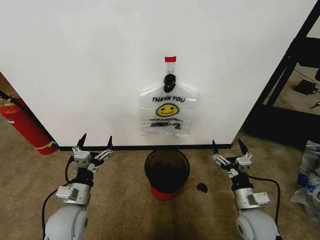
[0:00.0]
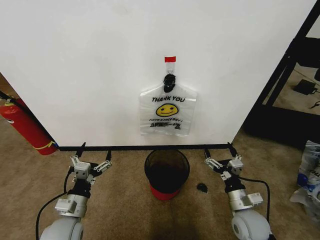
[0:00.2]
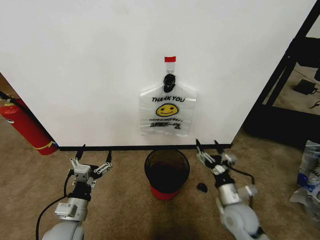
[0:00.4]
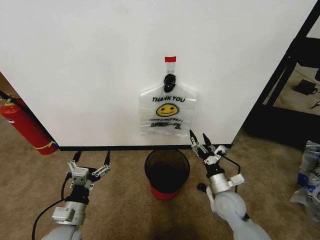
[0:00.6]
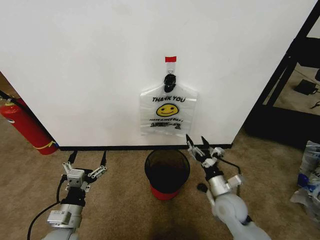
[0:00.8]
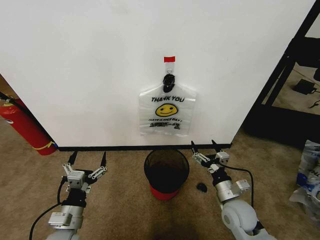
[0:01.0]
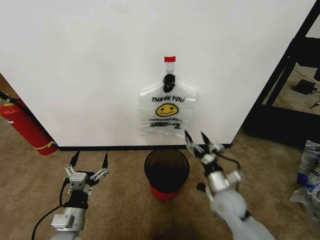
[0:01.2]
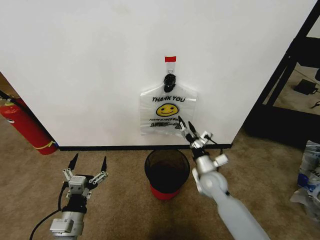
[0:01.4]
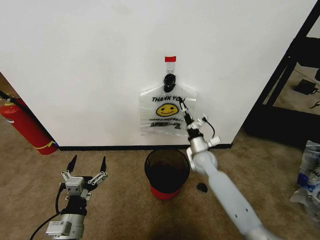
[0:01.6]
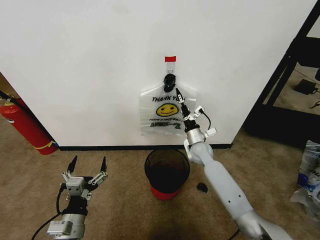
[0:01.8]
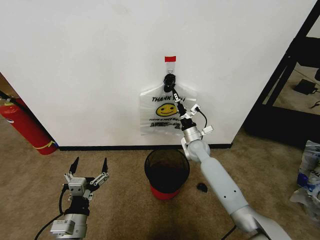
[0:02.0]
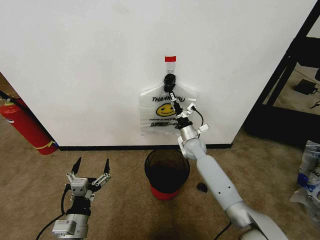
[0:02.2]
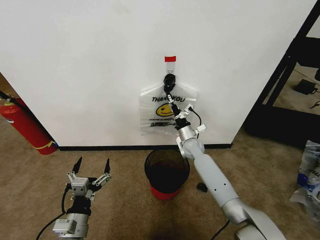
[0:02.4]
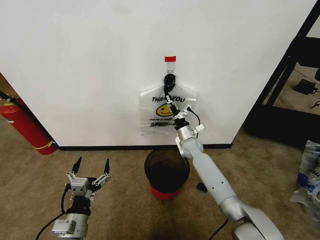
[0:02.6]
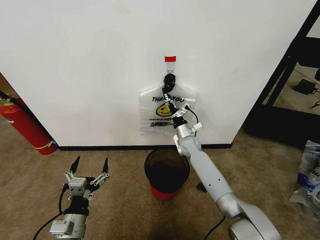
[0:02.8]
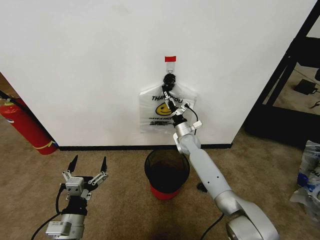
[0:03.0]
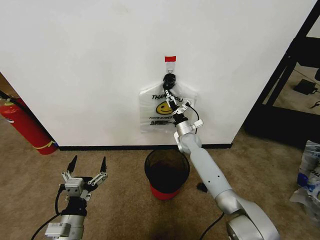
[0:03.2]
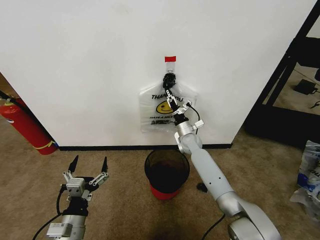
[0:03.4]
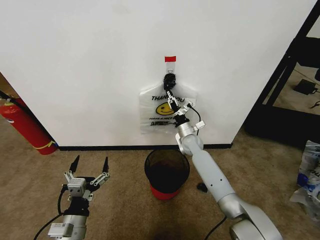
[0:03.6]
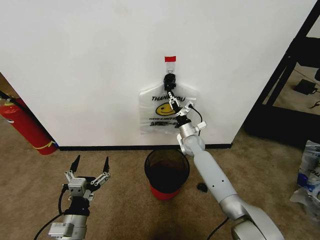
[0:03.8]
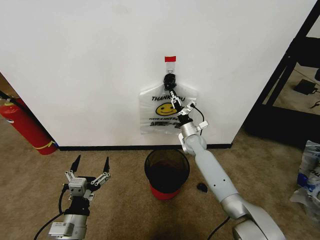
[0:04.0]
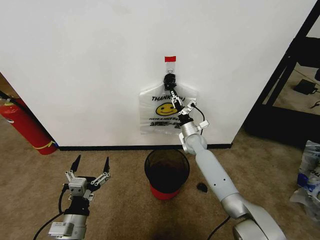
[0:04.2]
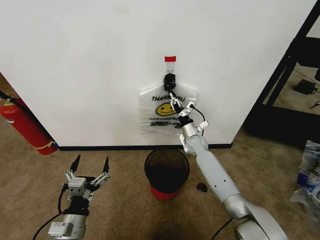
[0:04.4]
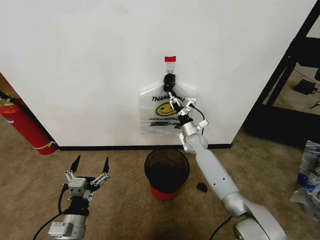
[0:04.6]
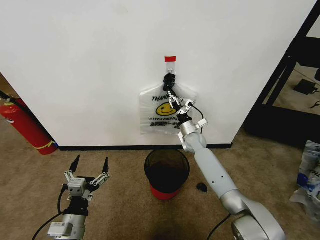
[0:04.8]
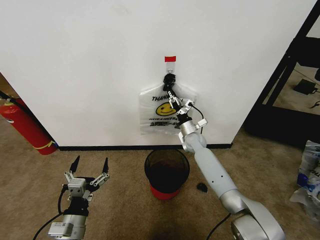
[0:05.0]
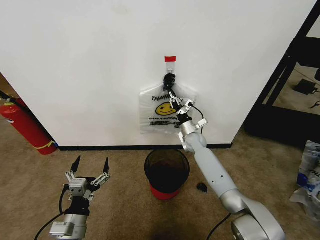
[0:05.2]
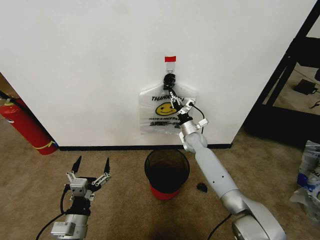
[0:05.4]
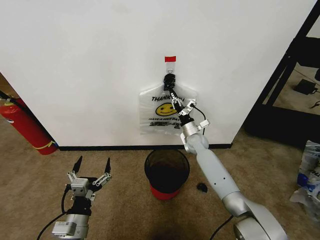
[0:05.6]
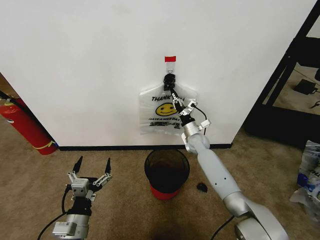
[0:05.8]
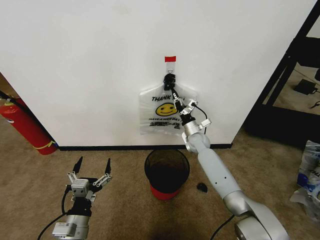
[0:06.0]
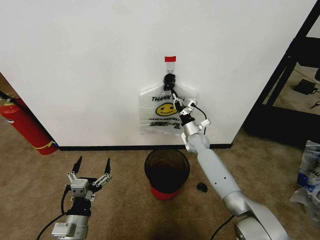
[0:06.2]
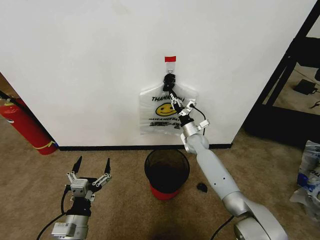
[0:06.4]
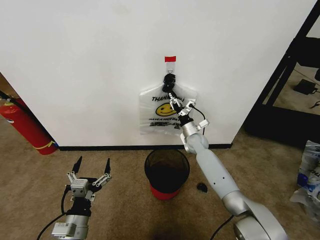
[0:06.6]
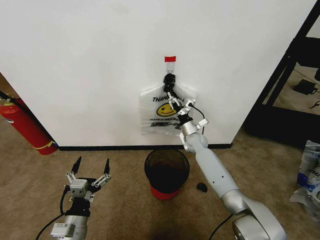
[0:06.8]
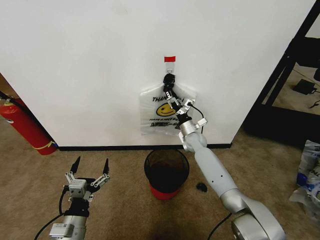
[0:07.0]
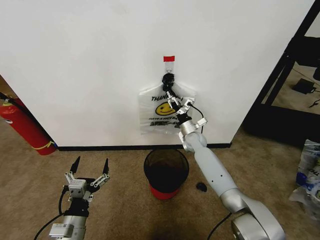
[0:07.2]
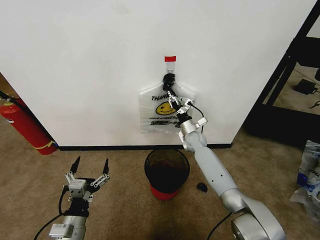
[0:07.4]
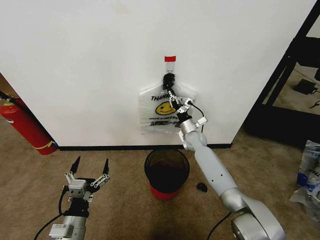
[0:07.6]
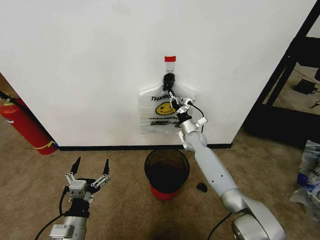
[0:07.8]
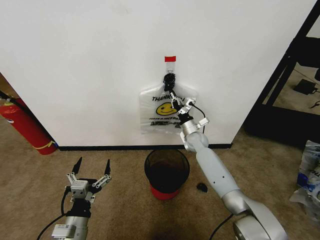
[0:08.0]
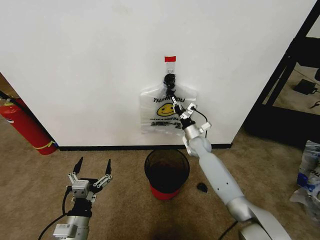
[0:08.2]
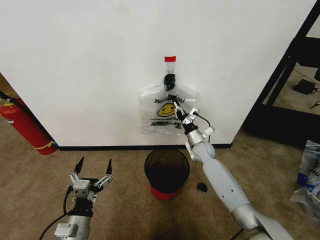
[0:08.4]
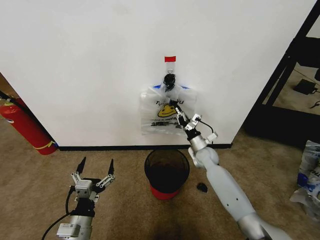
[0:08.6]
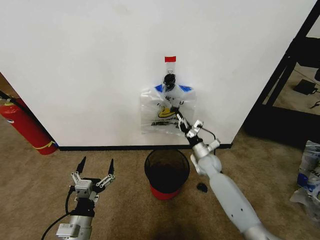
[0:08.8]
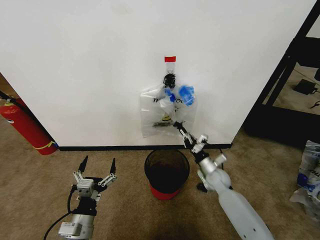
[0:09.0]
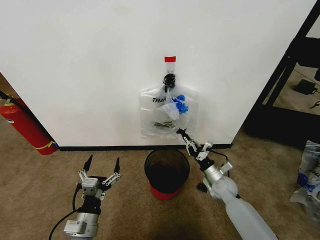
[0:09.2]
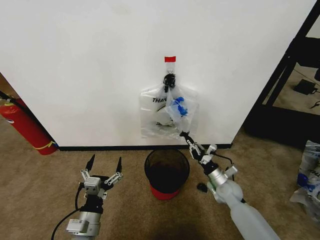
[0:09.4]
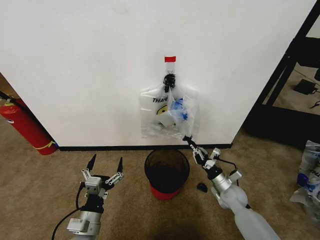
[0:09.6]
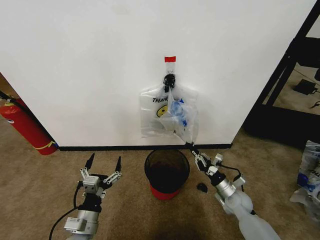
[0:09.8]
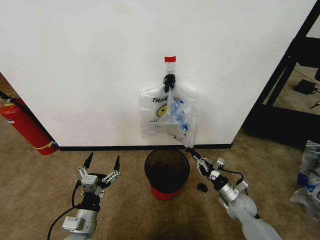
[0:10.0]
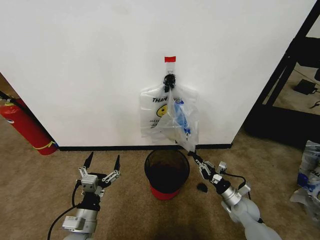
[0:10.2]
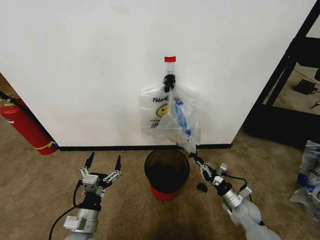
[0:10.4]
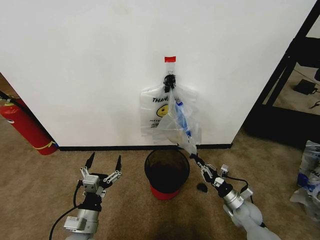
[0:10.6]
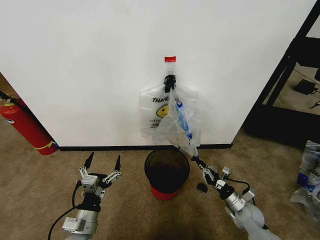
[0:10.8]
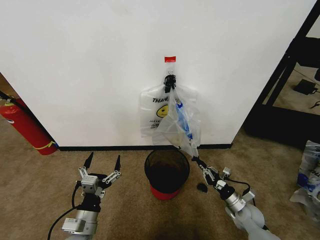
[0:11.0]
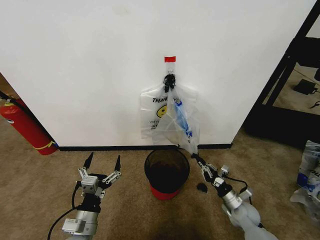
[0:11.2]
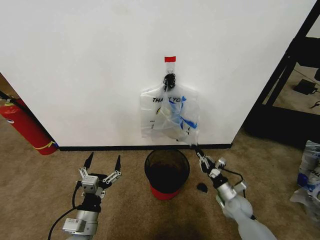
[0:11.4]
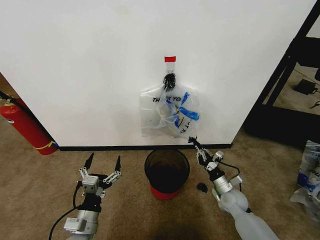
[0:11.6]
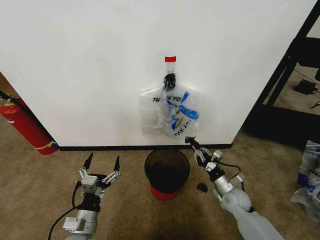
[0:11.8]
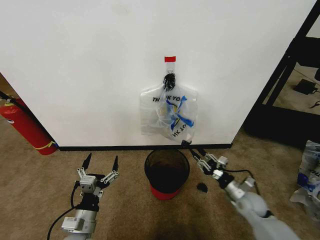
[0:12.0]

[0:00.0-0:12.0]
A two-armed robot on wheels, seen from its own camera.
Task of the whole recording: Pick up the garbage bag from the wall and place it over the trash bin.
0:01.6 to 0:03.0: The right gripper travels forward by roughly 15 cm.
0:03.0 to 0:04.4: The right gripper closes its fingers.
0:04.4 to 0:06.0: The right gripper closes up.
0:06.0 to 0:07.6: The right gripper opens, then closes once more.
0:07.6 to 0:09.0: The right gripper is displaced backward, downward and to the right by about 20 cm.
0:09.0 to 0:10.4: The right gripper shifts about 15 cm backward and to the right.
0:10.4 to 0:12.0: The right gripper changes place by about 5 cm.

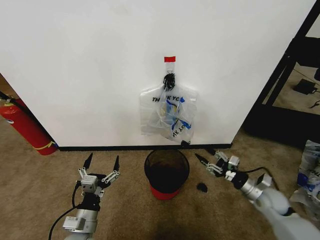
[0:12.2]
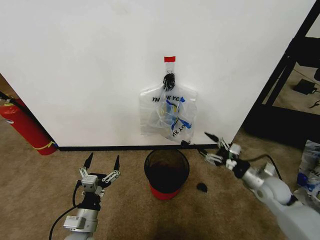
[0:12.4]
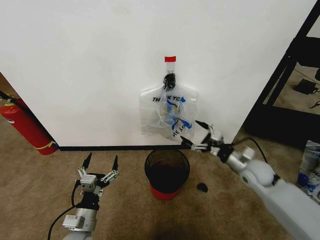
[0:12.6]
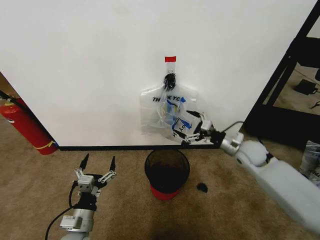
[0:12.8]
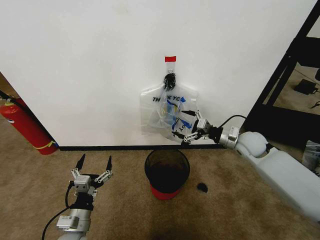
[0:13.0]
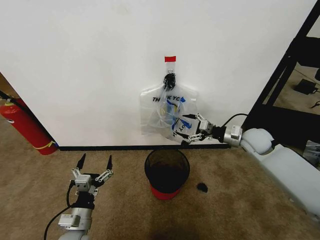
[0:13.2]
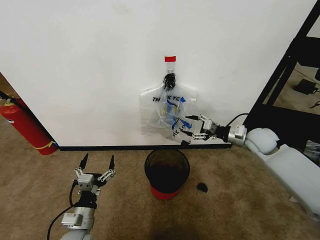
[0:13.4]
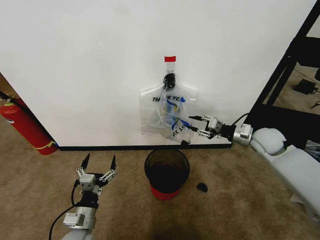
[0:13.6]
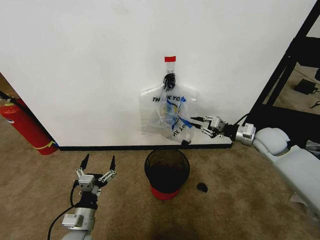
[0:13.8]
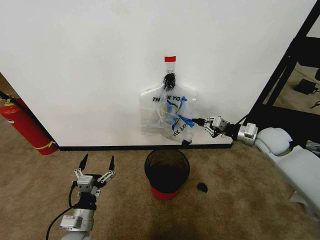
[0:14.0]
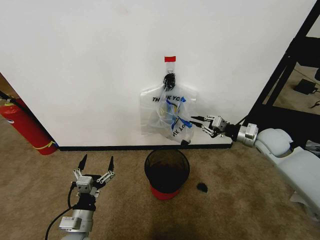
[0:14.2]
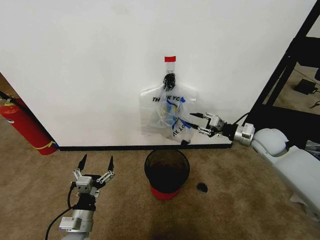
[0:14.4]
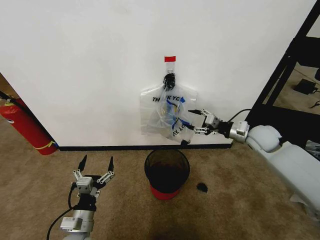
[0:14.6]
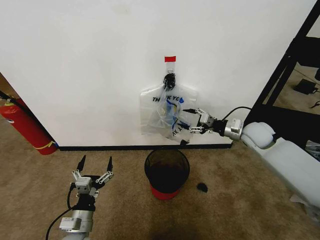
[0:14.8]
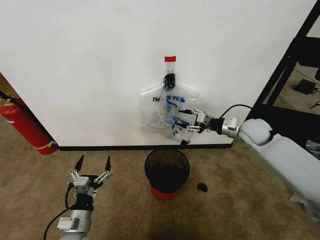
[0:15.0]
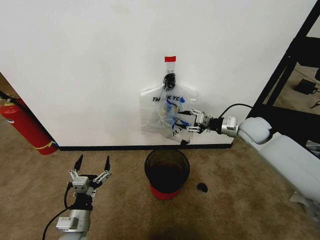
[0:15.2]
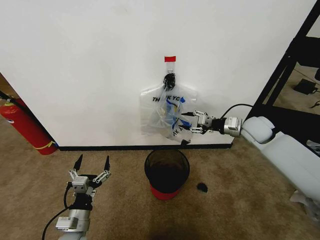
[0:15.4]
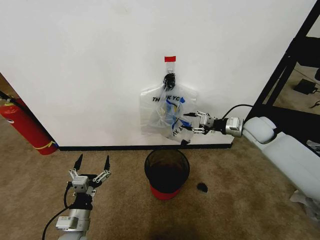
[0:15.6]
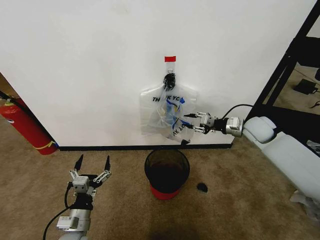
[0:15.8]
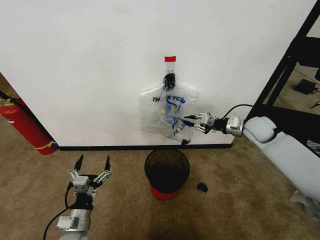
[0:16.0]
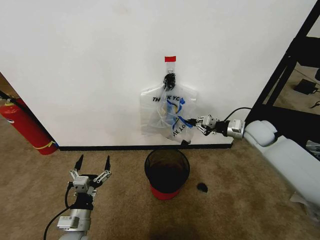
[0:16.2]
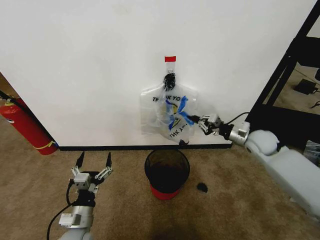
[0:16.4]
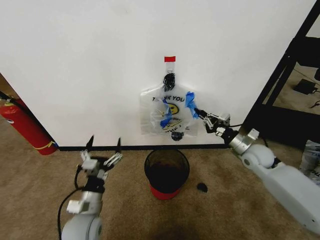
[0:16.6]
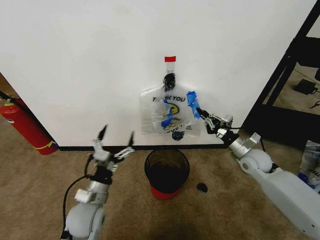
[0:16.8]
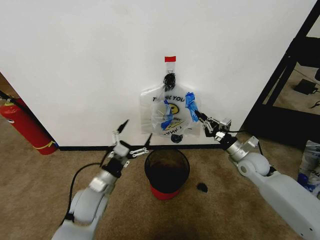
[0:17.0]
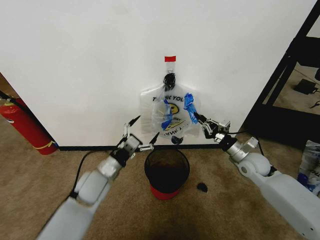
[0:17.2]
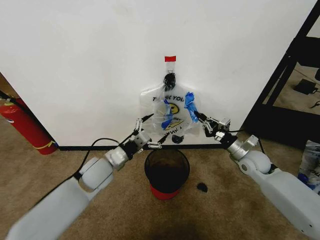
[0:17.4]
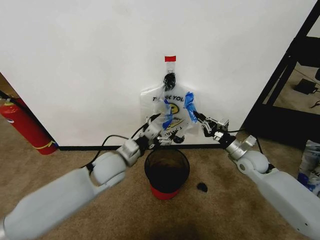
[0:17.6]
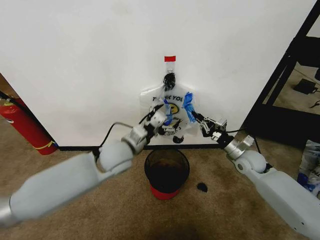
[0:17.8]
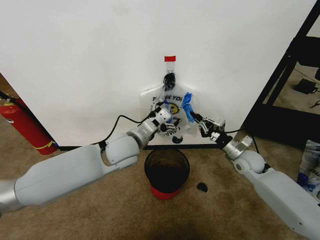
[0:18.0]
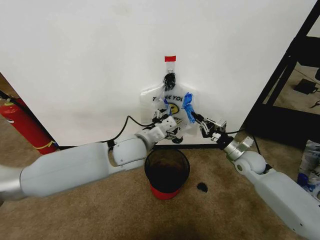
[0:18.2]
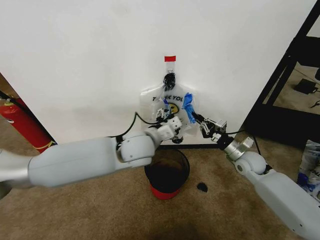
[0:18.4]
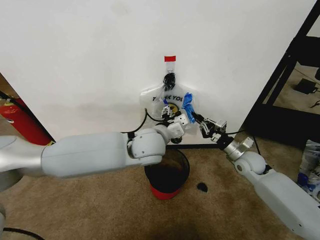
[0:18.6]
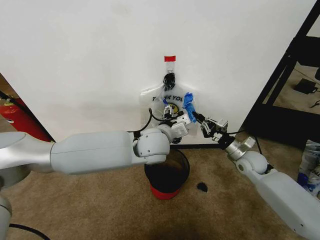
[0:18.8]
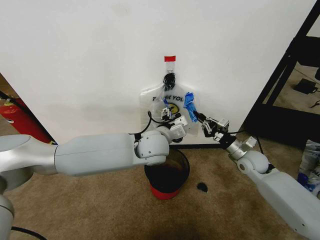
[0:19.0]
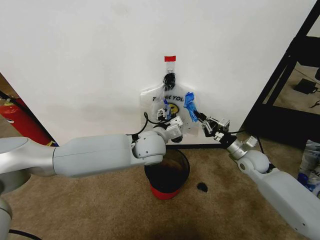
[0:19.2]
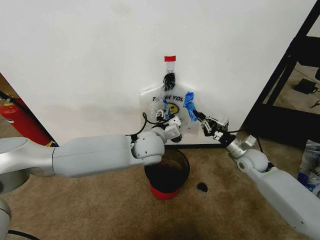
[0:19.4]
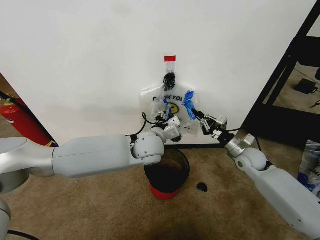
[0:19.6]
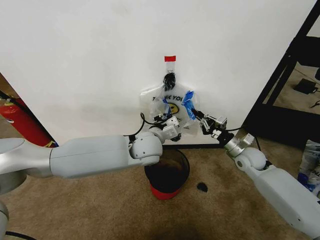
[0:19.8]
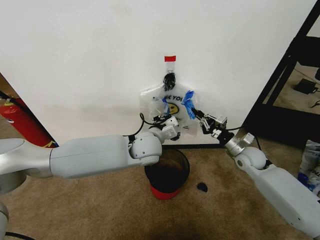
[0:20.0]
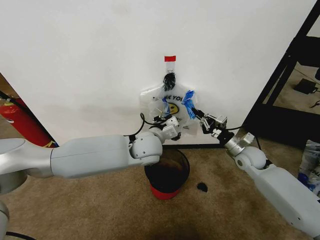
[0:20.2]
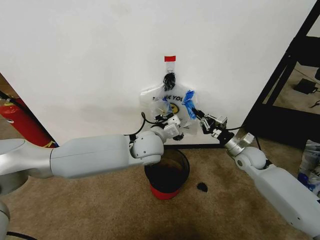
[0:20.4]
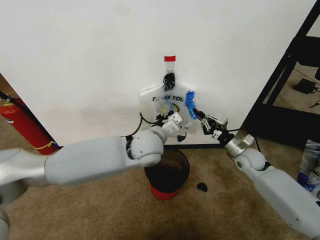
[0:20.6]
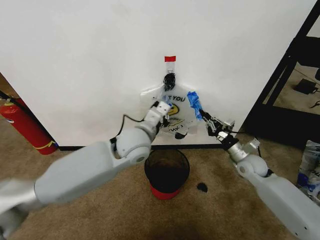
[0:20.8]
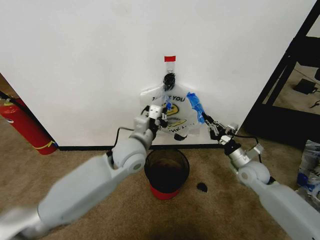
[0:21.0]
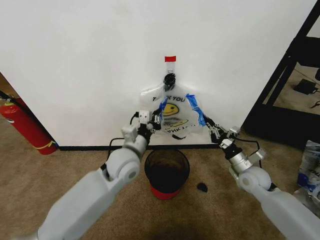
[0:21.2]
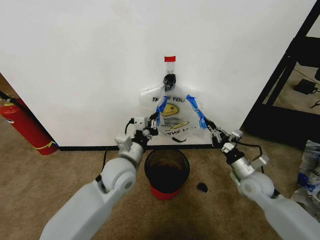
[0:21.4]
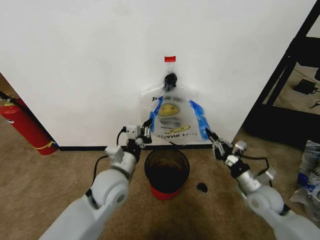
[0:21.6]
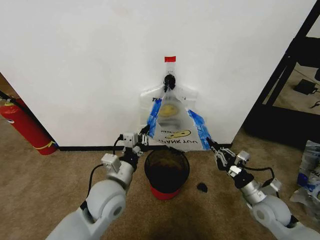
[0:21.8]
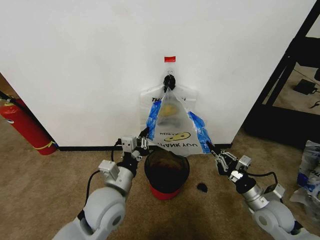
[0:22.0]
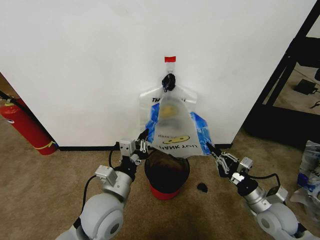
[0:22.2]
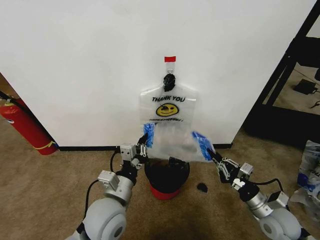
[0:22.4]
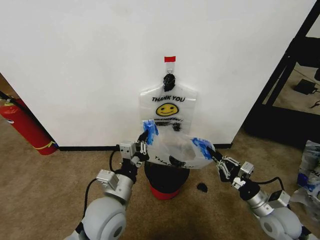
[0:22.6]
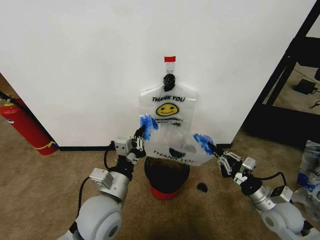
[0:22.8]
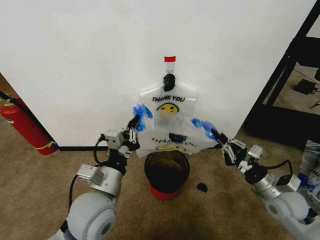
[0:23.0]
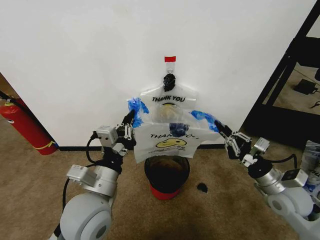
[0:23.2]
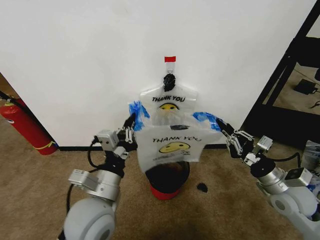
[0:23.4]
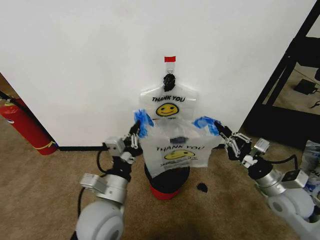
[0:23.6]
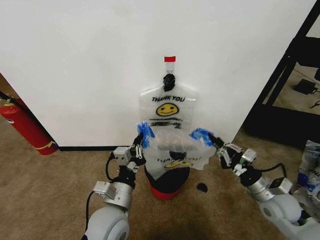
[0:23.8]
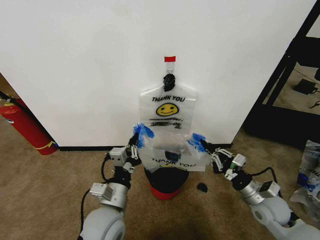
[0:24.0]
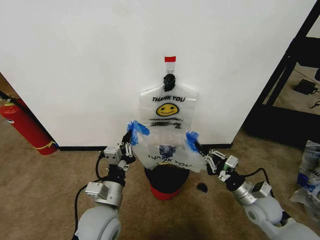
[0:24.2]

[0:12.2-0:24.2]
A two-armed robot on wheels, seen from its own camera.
Task of the whole recording: Pick up the garbage bag from the wall and place it over the trash bin.
0:12.2 to 0:13.8: The right gripper travels upward and forward by roughly 20 cm, and closes its fingers.
0:13.8 to 0:15.2: The right gripper moves some 5 cm.
0:15.2 to 0:16.6: The right gripper shifts about 10 cm downward and backward, and closes its fingers.
0:16.6 to 0:18.2: The left gripper shifts roughly 30 cm upward, forward and to the right; the right gripper changes place by approximately 5 cm.
0:18.2 to 0:19.8: The left gripper moves about 5 cm, and closes up.
0:19.8 to 0:21.2: The right gripper shifts approximately 5 cm backward, while the left gripper travels to the left by about 5 cm.
0:21.2 to 0:22.6: Both grippers travel together backward, approximately 15 cm.
0:22.6 to 0:24.2: The right gripper goes upward and returns, about 10 cm each way. Meanwhile the left gripper moves about 5 cm upward and comes back.
